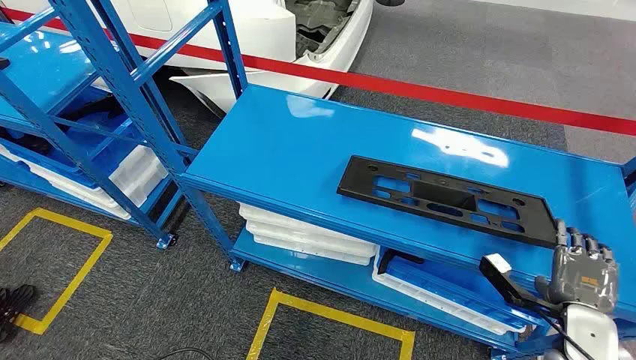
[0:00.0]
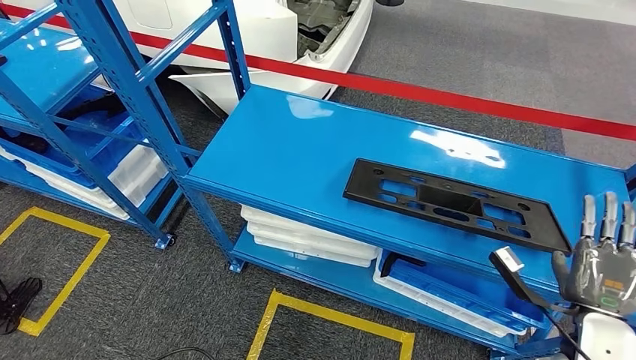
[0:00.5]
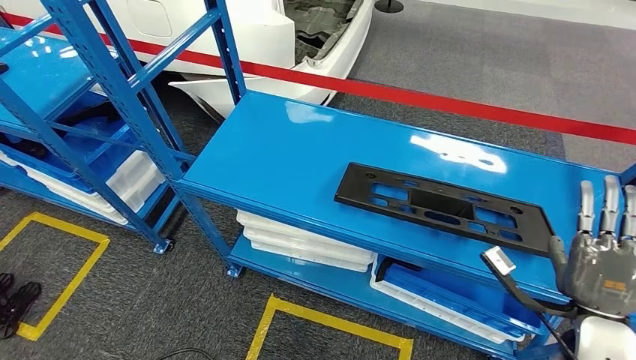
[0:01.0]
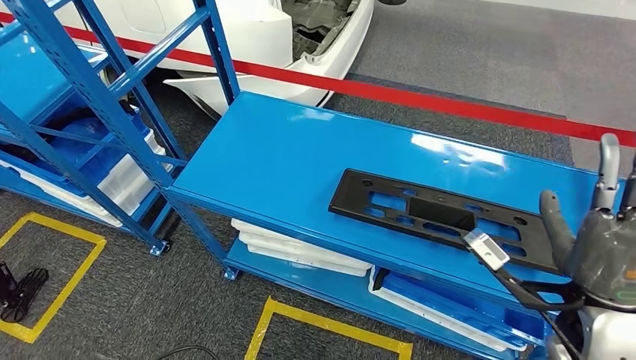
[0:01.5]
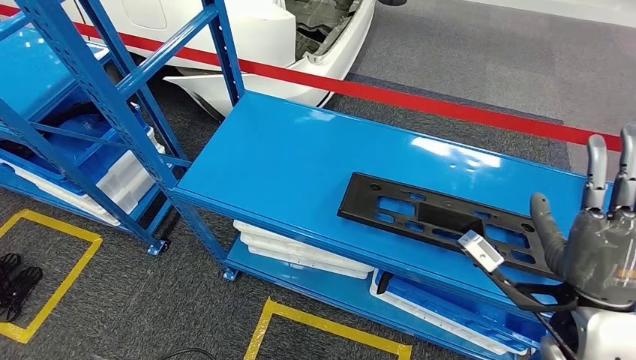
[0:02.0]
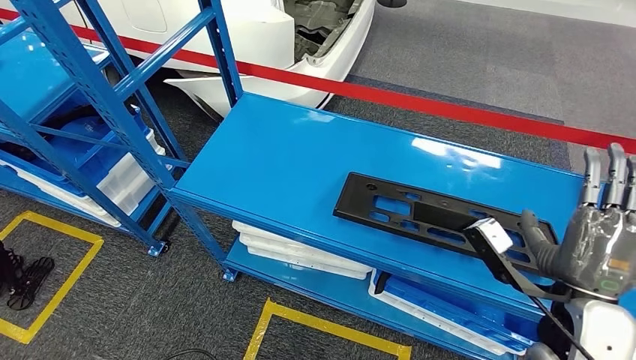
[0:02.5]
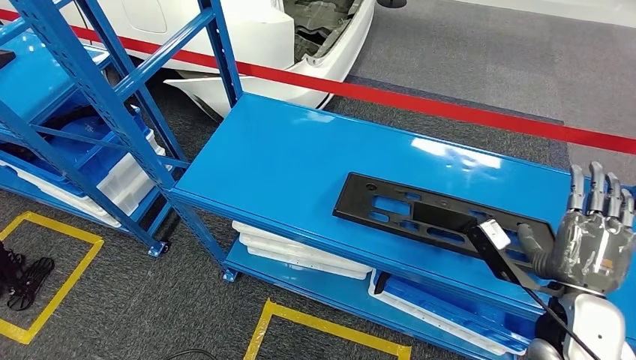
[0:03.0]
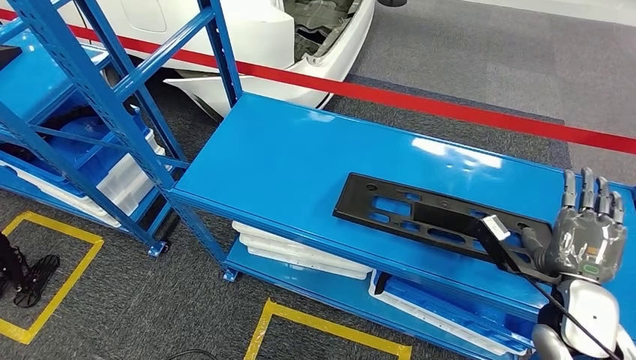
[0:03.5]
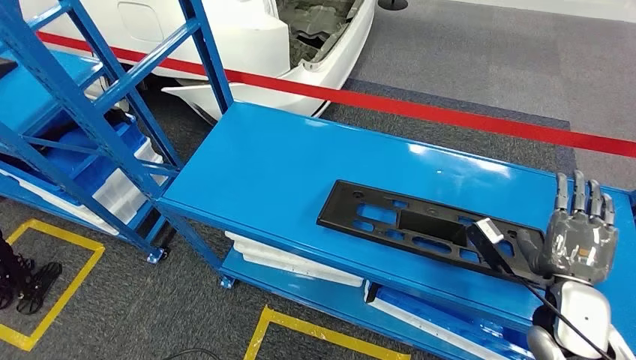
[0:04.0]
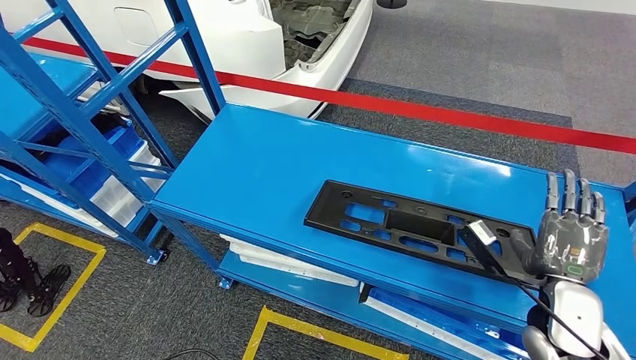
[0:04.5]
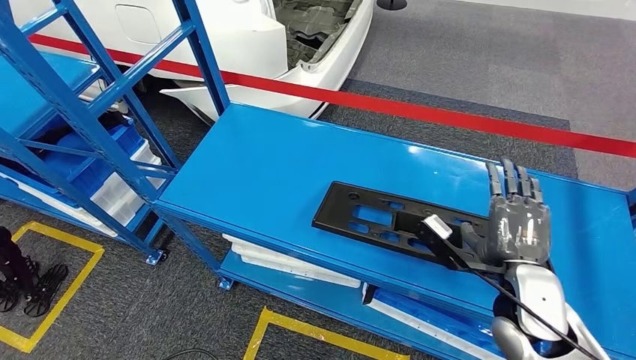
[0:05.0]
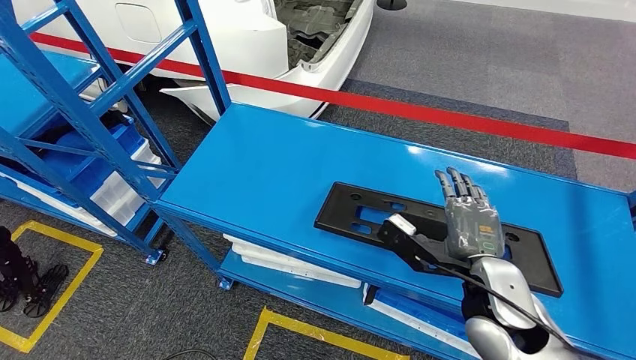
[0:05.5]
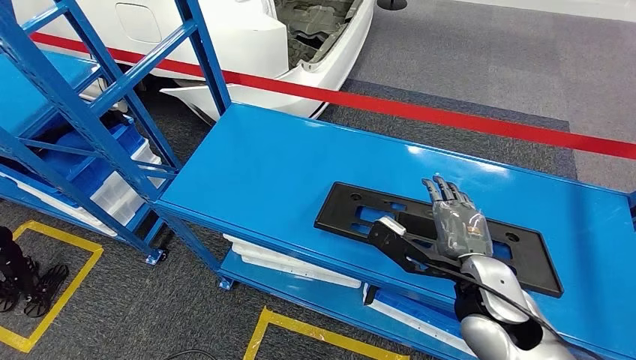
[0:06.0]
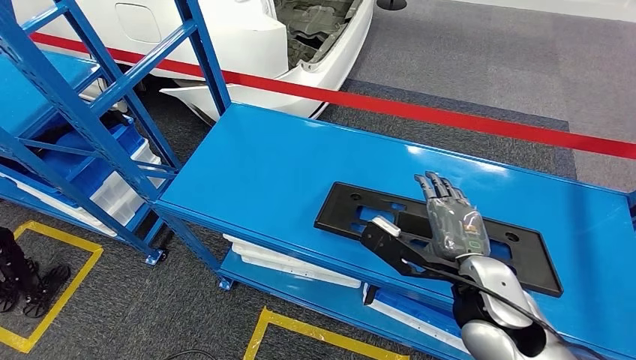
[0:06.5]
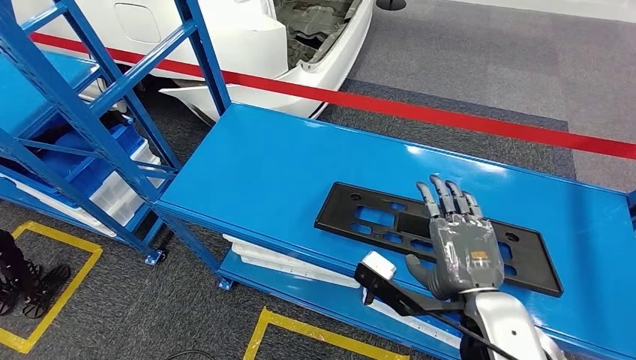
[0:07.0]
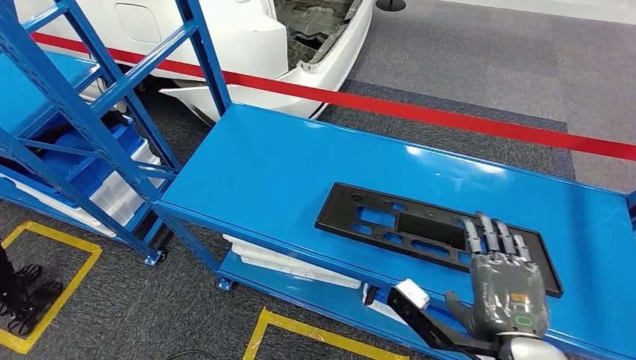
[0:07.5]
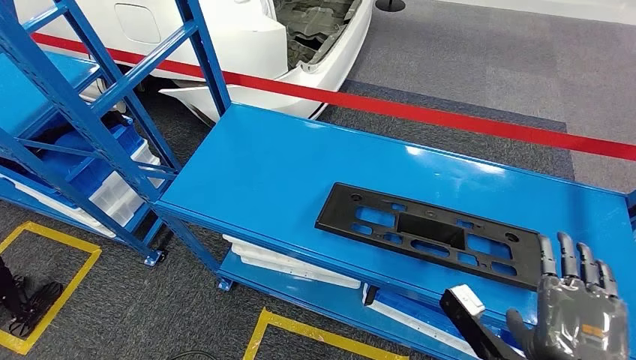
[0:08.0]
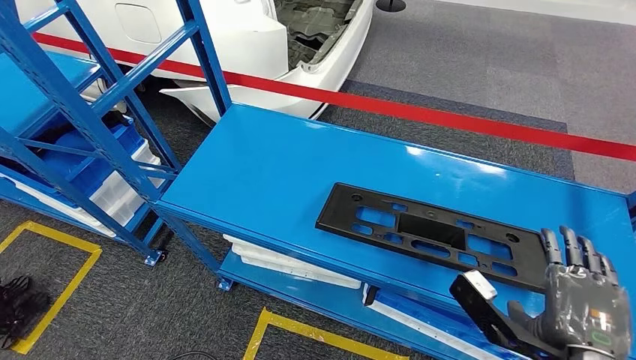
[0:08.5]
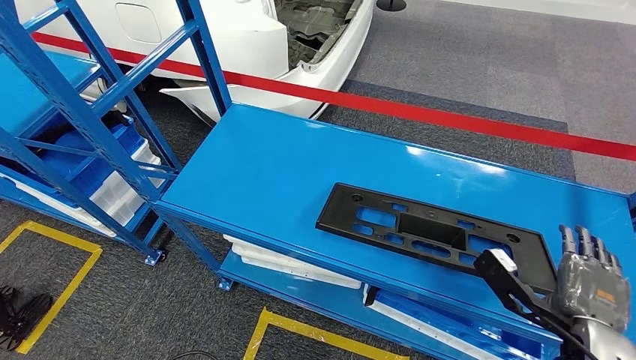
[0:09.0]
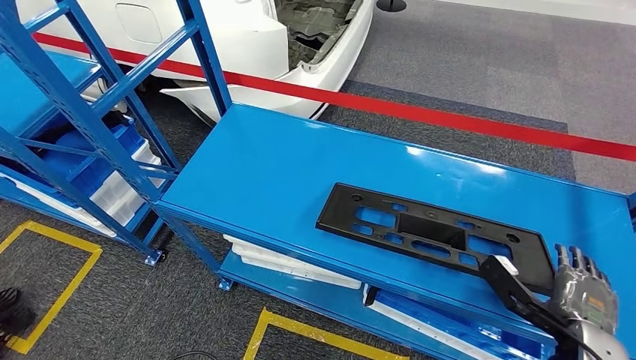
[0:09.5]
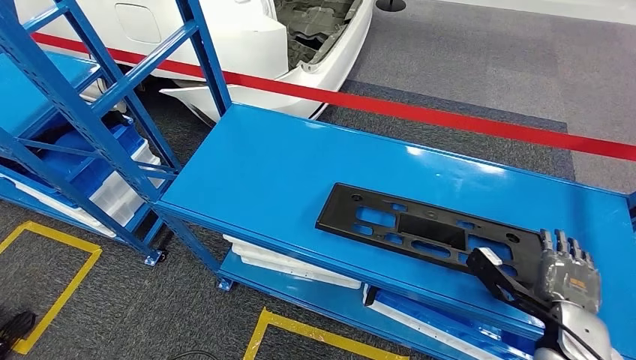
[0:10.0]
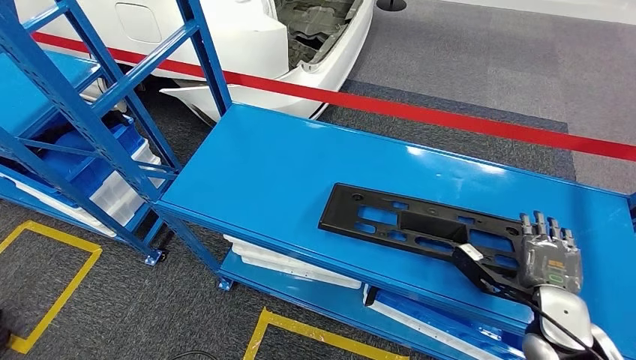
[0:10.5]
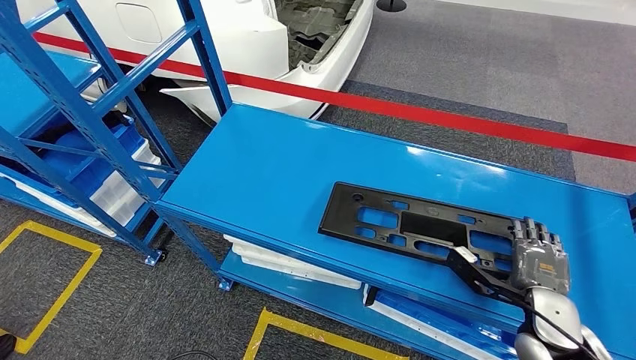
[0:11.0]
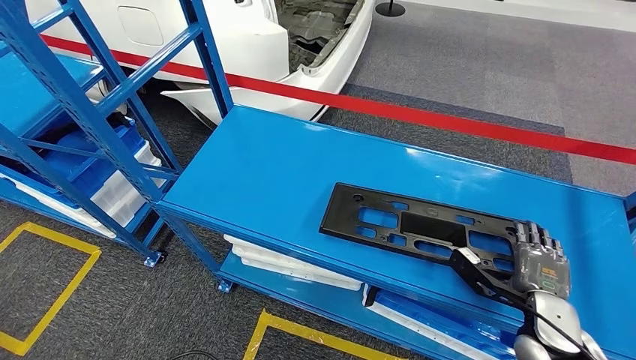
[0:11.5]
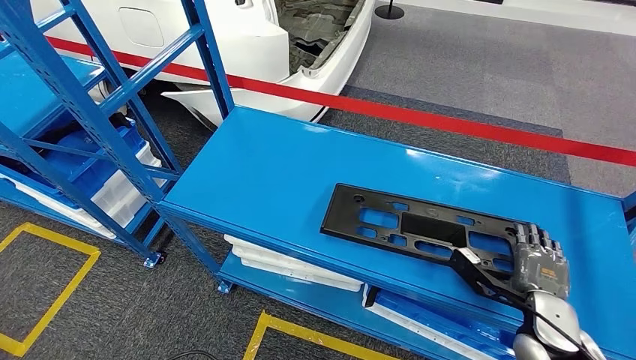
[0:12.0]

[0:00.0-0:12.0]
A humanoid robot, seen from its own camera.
6.0 to 8.0 s: The right hand heads backward and to the right, covering some 15 cm.
8.0 to 10.0 s: The right hand is displaced forward, downward and to the right by approximately 15 cm.

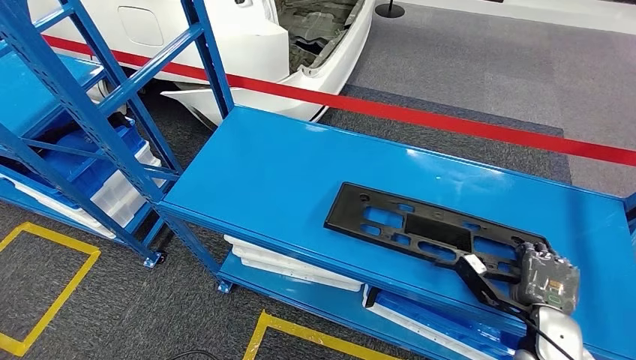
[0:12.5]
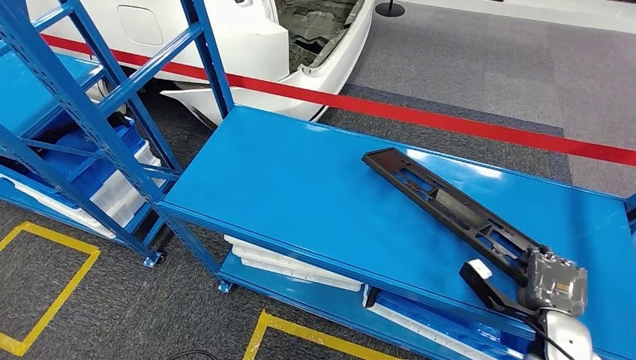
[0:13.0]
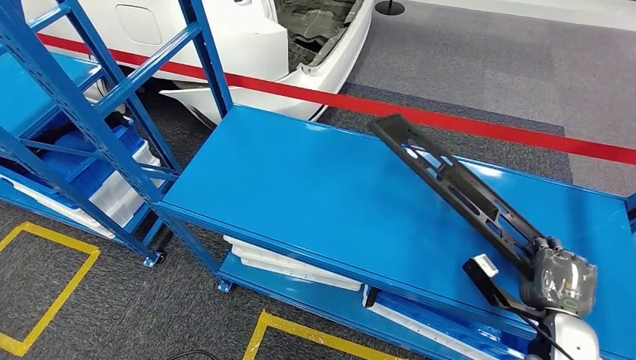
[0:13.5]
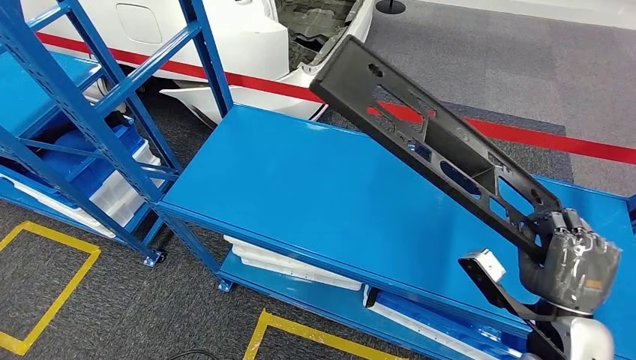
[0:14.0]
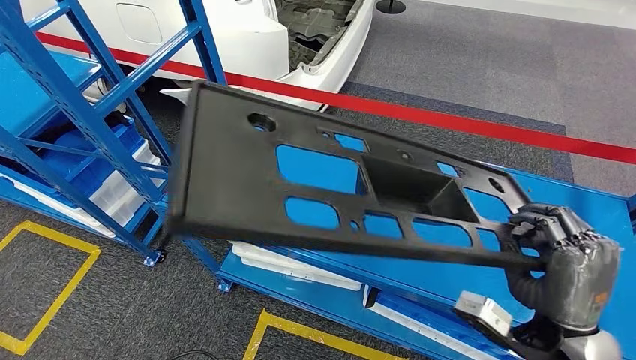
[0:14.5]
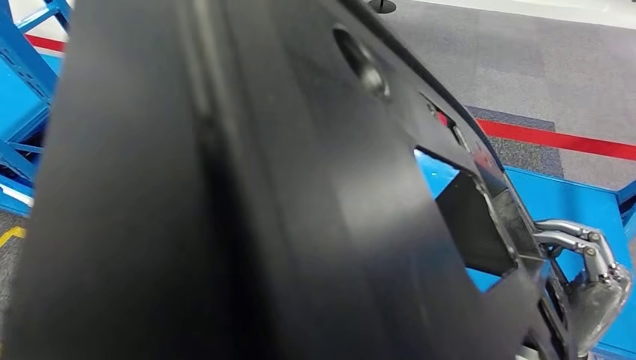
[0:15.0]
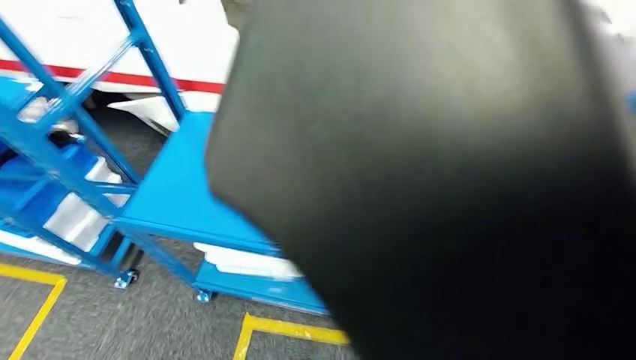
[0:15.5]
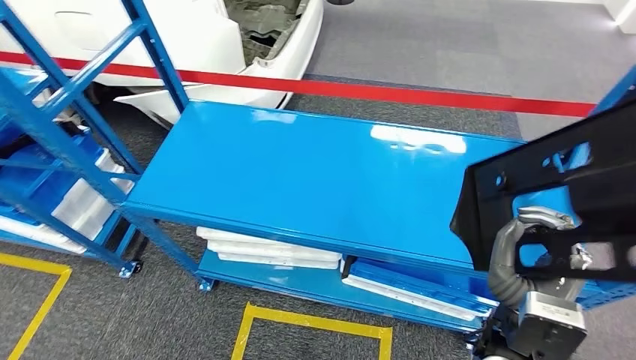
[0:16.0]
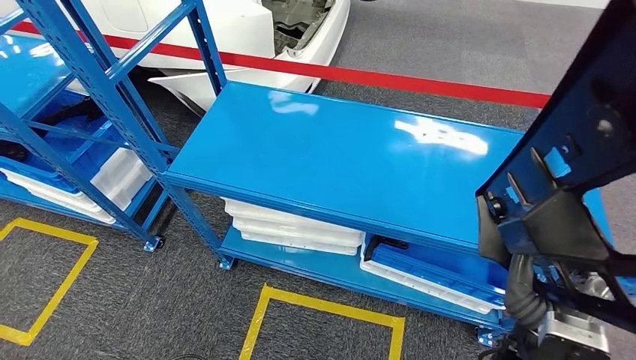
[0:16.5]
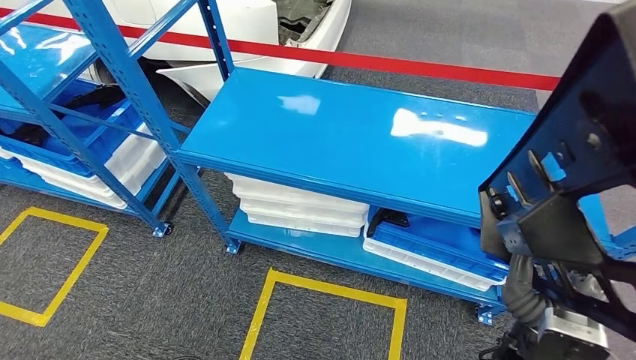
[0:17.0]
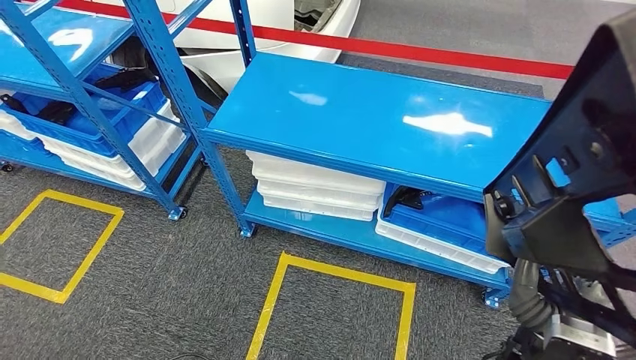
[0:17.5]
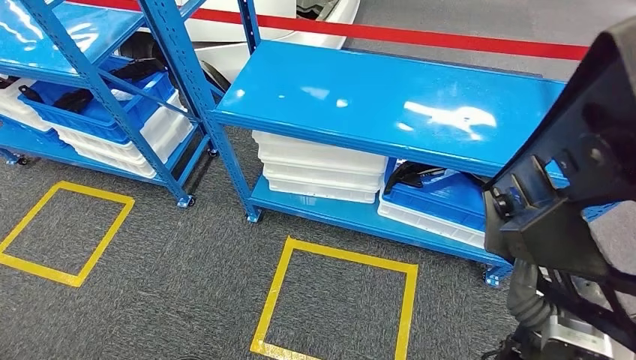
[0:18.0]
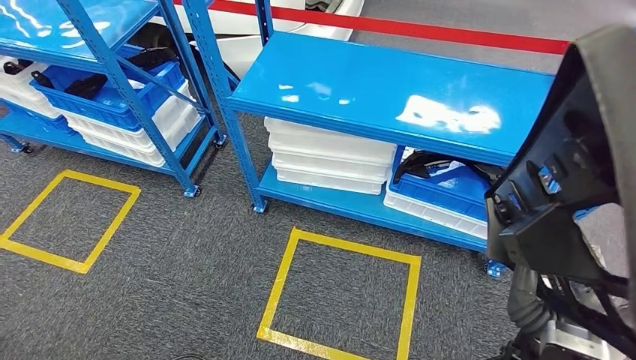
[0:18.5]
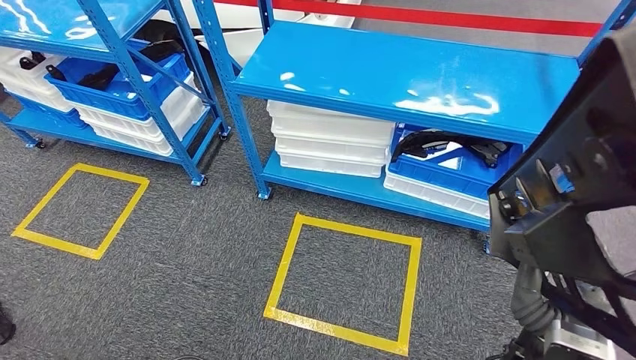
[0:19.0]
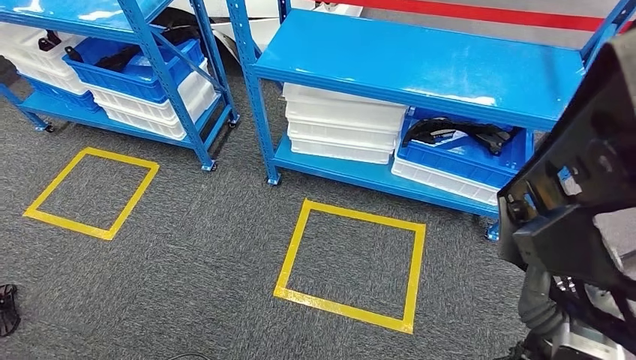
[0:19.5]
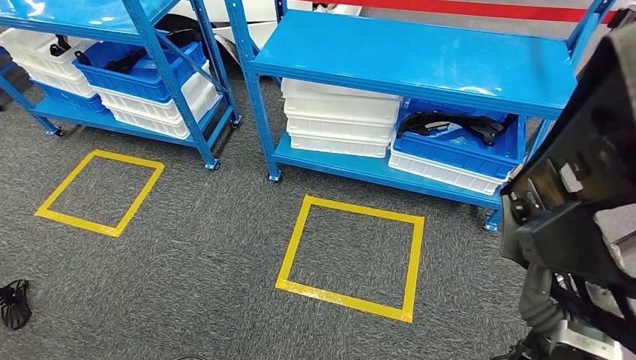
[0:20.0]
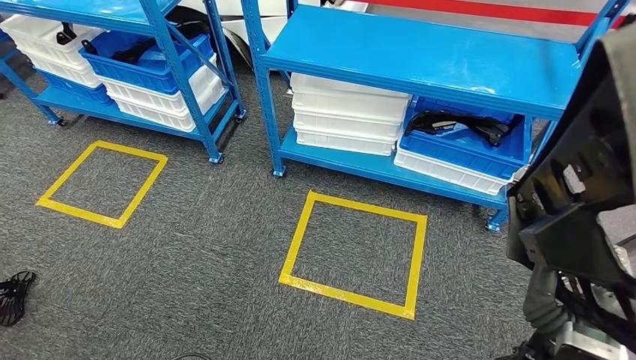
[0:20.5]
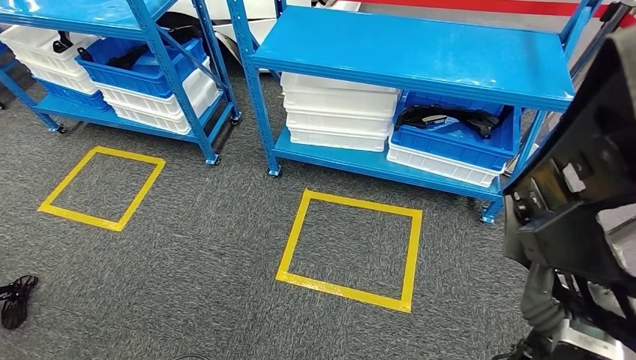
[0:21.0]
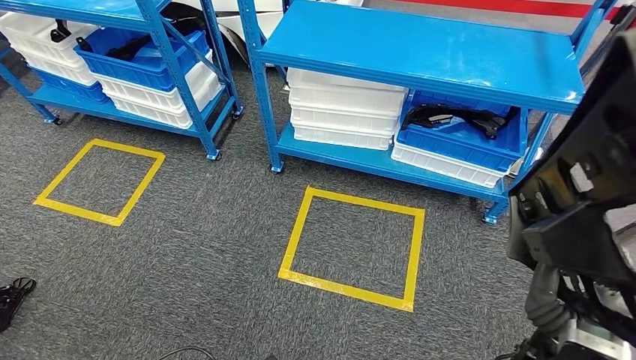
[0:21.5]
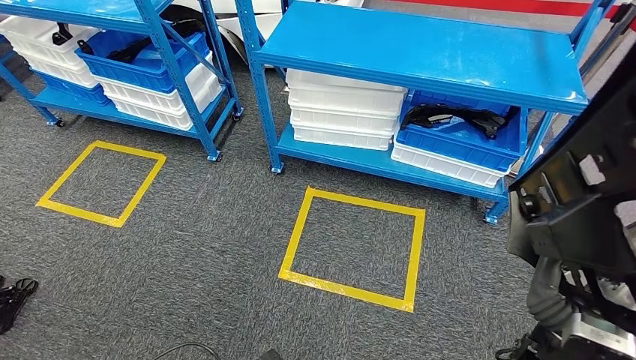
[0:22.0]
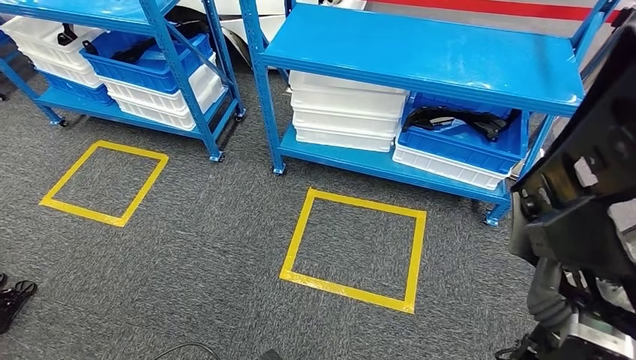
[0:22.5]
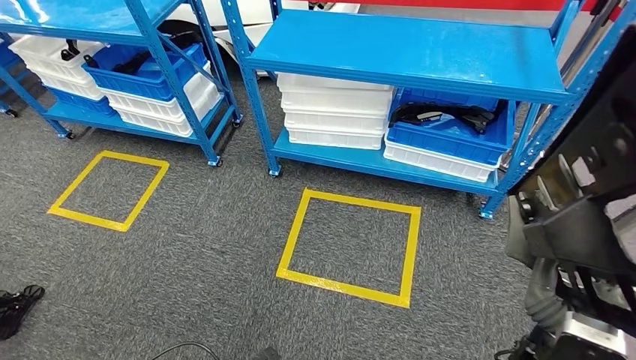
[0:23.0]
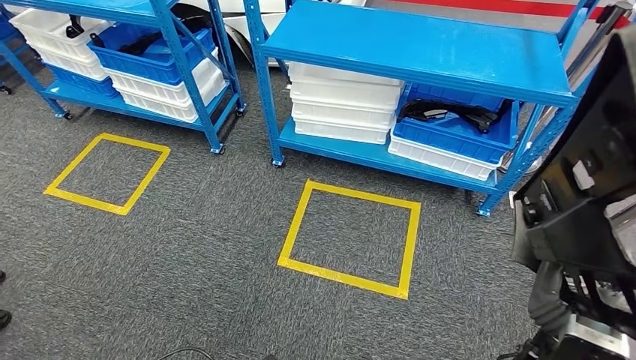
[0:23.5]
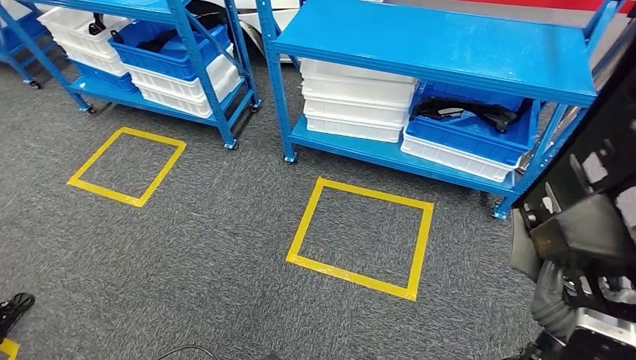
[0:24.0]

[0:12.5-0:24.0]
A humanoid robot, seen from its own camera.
Step, 12.5 to 16.5 s: Pick up the large material from the shelf.
